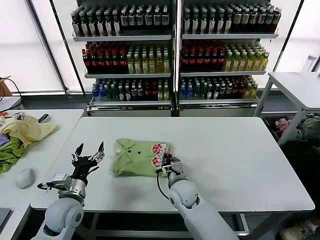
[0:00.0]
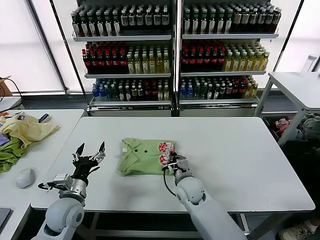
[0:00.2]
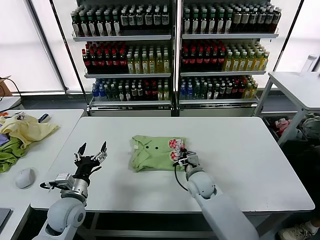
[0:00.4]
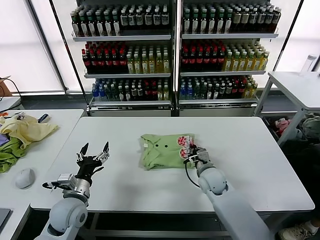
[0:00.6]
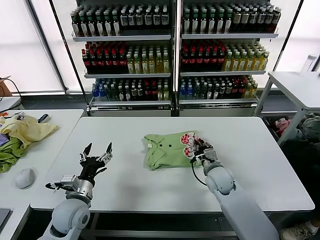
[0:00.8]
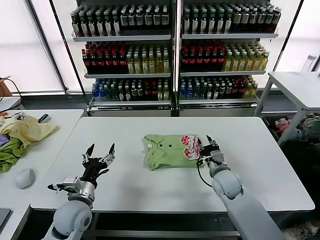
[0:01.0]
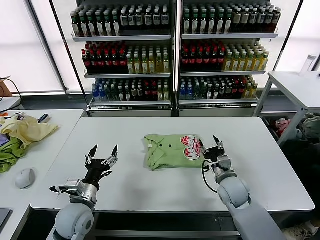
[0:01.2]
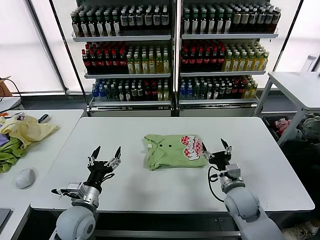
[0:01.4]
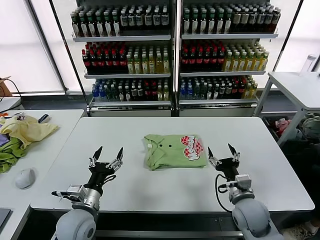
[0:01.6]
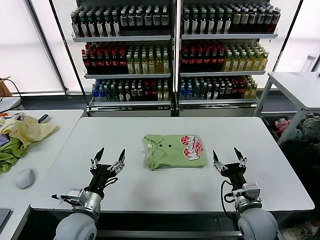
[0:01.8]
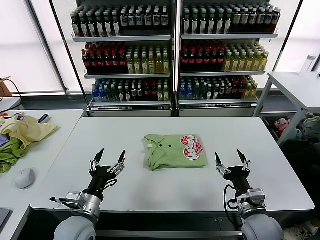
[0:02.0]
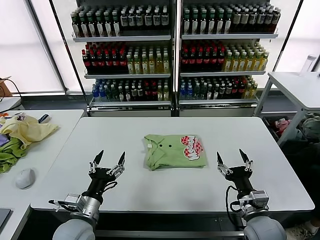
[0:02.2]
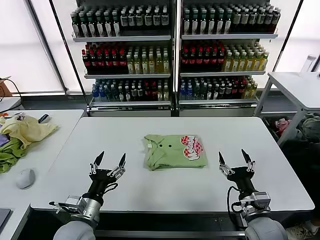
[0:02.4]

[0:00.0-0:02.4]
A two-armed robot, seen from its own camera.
Task of the whole recording: fold and organize the clothes.
0.0 to 1.2 s: The right gripper moves to the right, roughly 15 cm, and opens its fingers.
1.2 to 2.4 s: The right gripper moves backward, about 15 cm. The left gripper moves backward, roughly 5 cm.

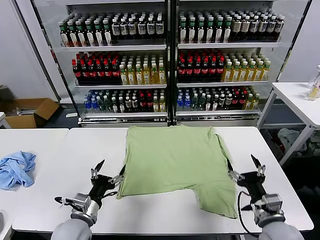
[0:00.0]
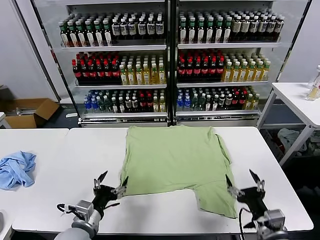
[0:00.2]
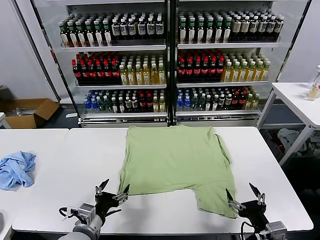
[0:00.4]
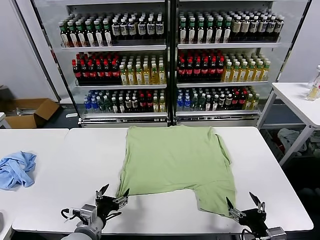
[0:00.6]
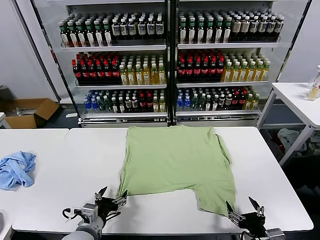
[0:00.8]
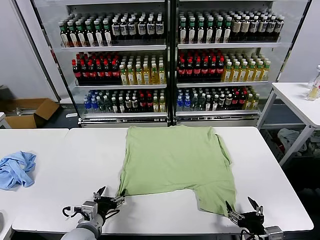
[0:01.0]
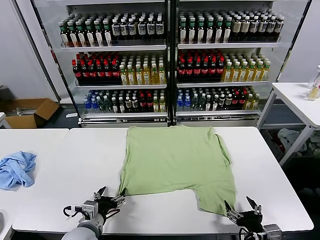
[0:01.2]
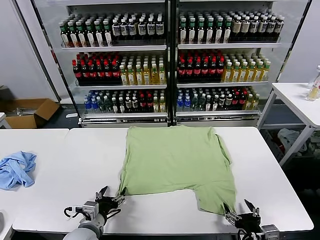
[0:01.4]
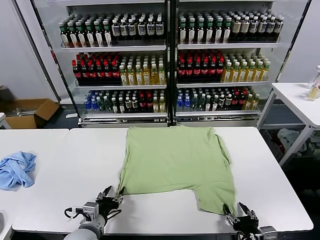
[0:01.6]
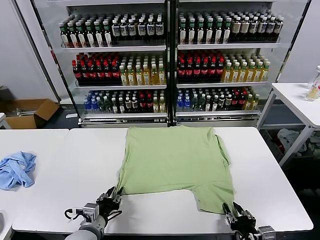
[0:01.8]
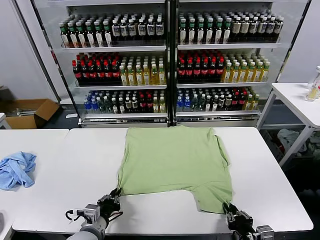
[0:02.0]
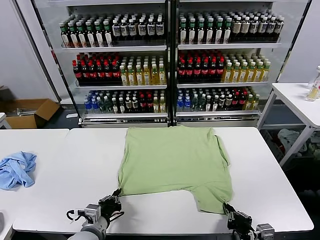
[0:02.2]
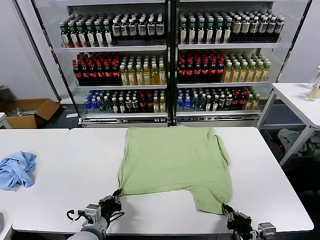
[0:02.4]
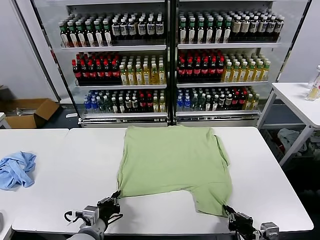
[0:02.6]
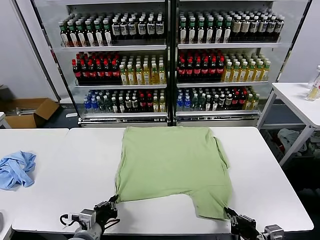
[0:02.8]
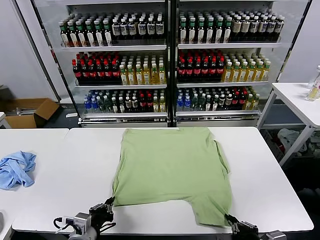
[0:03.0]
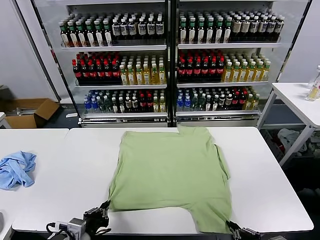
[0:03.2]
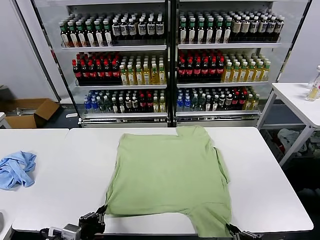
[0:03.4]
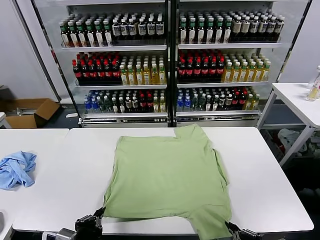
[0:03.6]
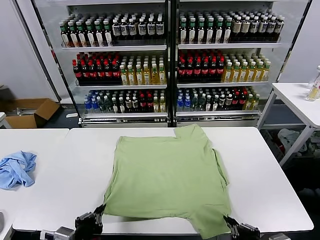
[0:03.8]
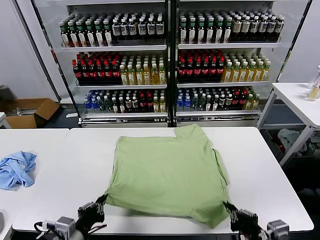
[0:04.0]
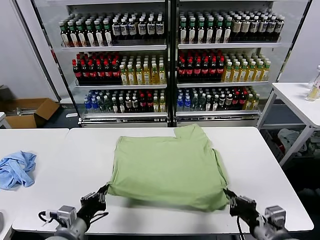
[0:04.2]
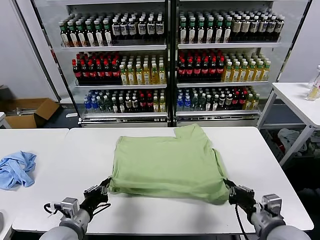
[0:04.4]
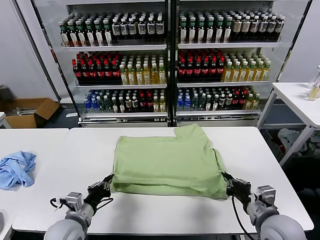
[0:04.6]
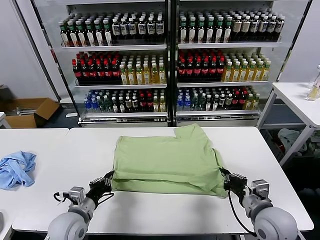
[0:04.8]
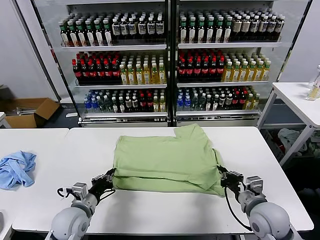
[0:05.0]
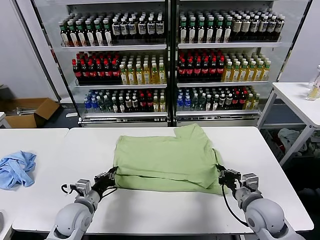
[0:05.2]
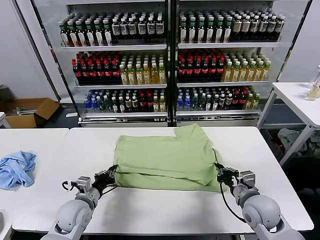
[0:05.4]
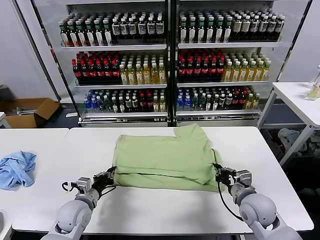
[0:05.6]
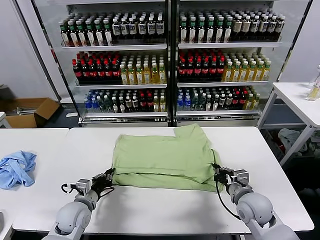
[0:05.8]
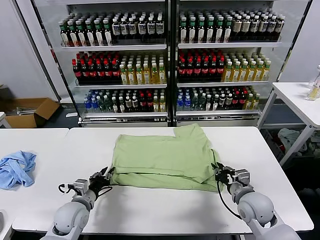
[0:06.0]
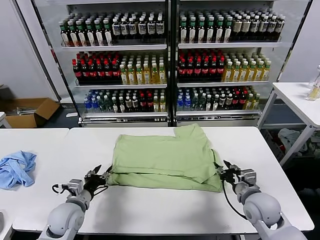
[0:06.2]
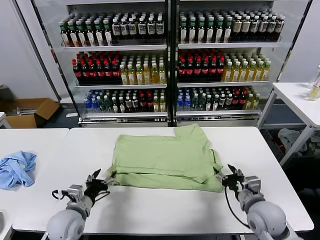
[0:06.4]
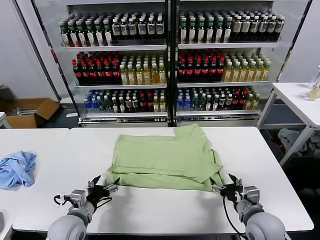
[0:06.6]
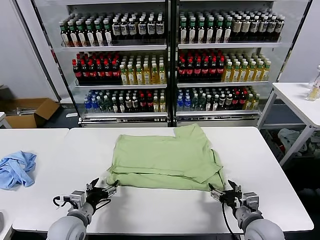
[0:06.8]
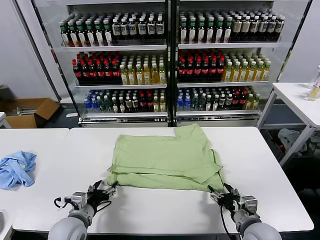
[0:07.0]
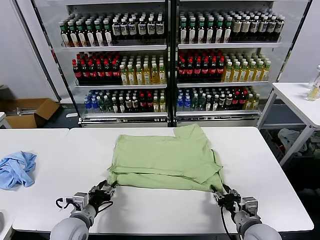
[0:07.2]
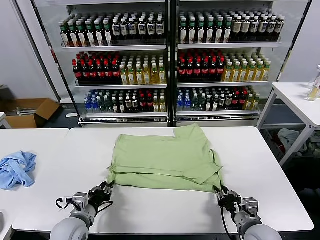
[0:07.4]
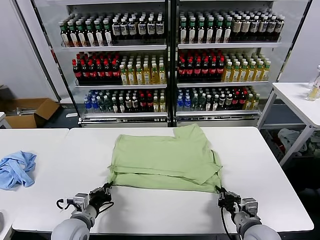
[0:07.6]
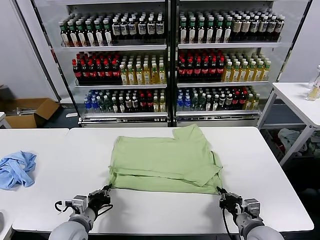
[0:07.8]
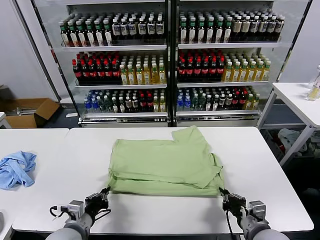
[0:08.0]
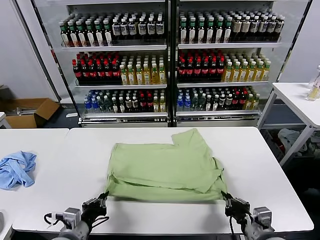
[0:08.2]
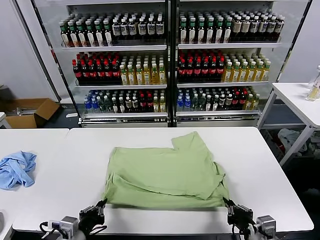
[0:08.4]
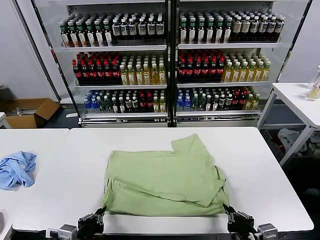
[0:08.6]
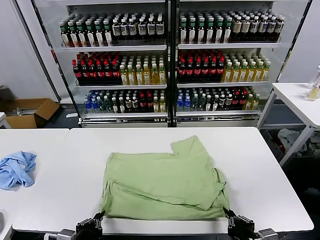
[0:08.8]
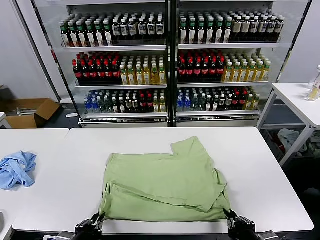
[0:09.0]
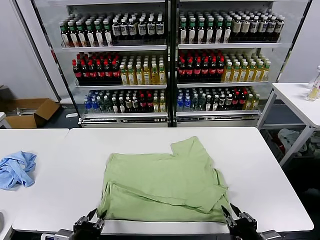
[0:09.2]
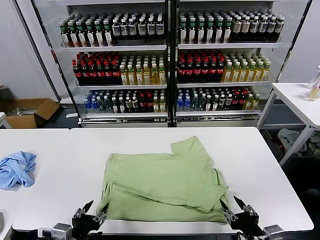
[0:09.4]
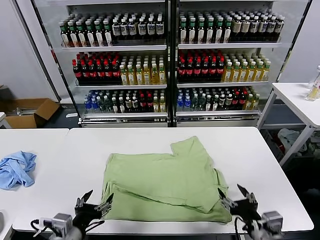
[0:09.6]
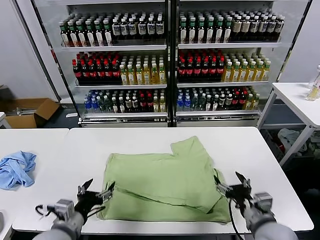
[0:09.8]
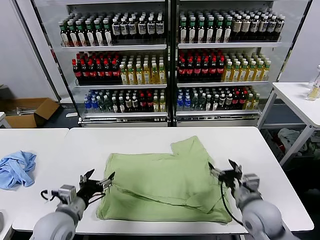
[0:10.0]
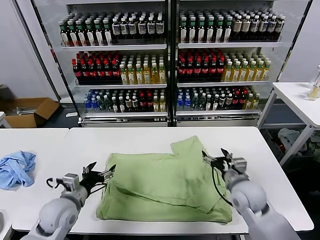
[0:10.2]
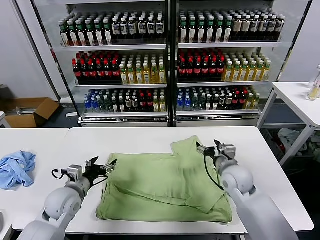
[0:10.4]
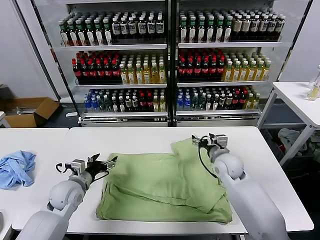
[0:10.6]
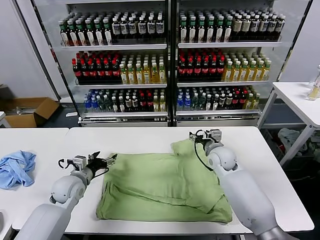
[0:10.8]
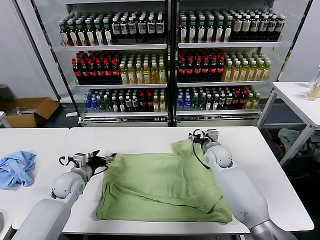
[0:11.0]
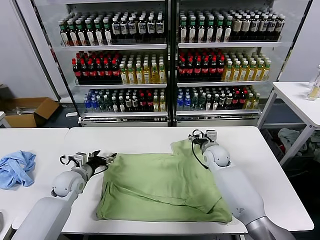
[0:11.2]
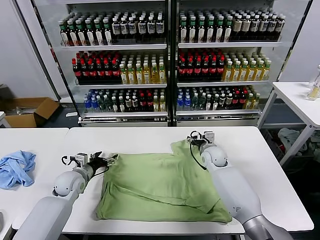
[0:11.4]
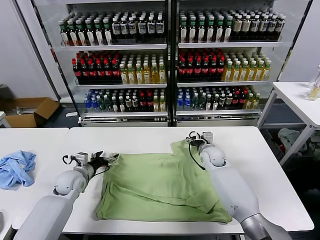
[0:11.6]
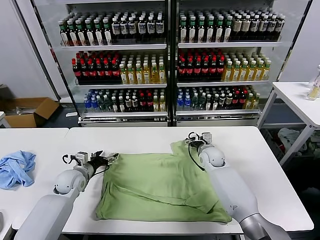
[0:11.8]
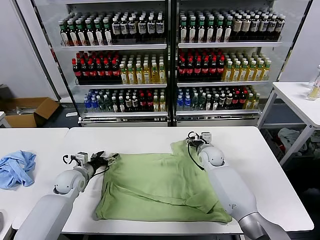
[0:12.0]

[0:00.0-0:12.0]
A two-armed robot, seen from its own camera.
Task of the whole recording: fold and organize the clothes.
Step, 0.0 to 3.0 s: use both grippers simultaneously to clamp the lower edge of the clothing fabric.
Step, 3.2 to 6.2 s: use both grippers to drag the lower edge of the fabric forward and fold it over the upper edge.
Step, 6.4 to 9.2 s: Drag the clothes downward with both gripper.
1.6 to 3.0 s: The right gripper shifts some 5 cm upward, and closes. Meanwhile the left gripper ends up roughly 5 cm from where it was, and closes up.
3.0 to 4.4 s: The left gripper goes about 5 cm forward, while the right gripper moves forward, about 10 cm.
4.4 to 6.0 s: Both grippers move forward and downward, roughly 10 cm. The left gripper opens. Meanwhile the right gripper opens its fingers.
6.0 to 7.6 s: The right gripper is displaced backward by some 10 cm, and closes its fingers. Meanwhile the left gripper shifts roughly 5 cm backward, and closes its fingers.
7.6 to 9.0 s: Both grippers travel together backward and upward, some 15 cm.
9.0 to 10.4 s: The two grippers go roughly 25 cm forward. The right gripper opens up, while the left gripper opens up.
10.4 to 12.0 s: The left gripper shifts about 10 cm forward. The right gripper goes approximately 10 cm forward and downward.

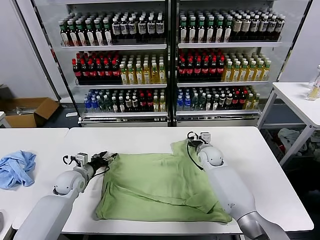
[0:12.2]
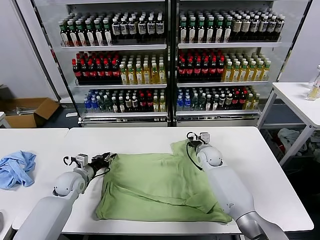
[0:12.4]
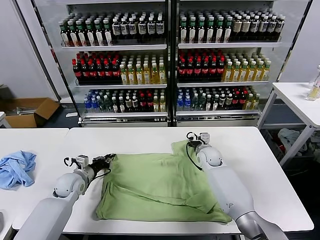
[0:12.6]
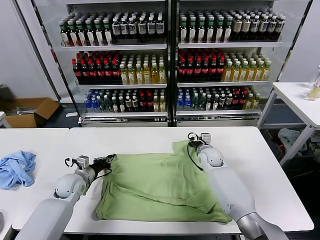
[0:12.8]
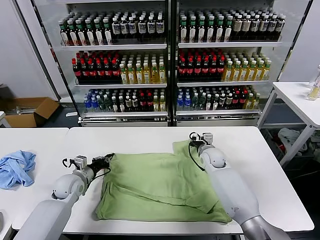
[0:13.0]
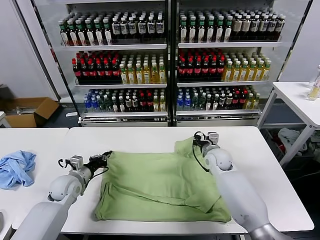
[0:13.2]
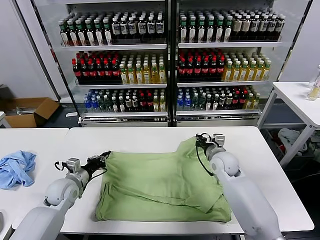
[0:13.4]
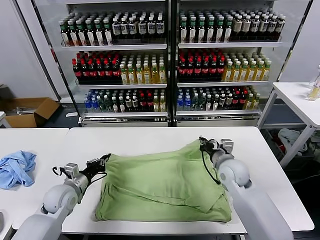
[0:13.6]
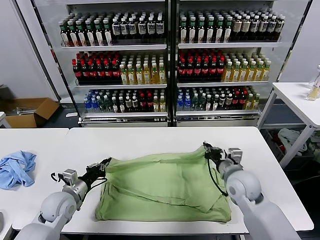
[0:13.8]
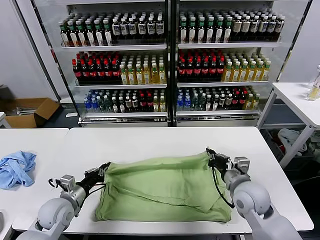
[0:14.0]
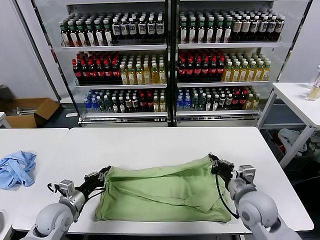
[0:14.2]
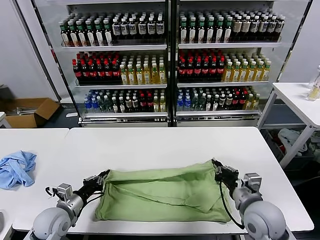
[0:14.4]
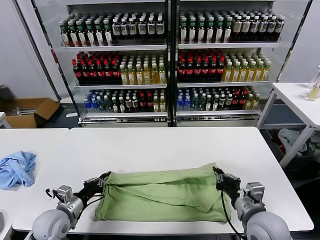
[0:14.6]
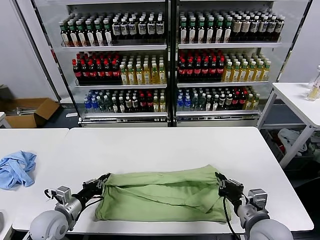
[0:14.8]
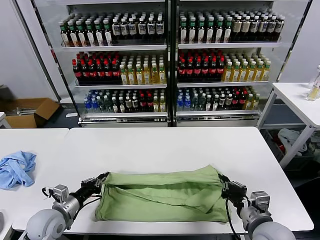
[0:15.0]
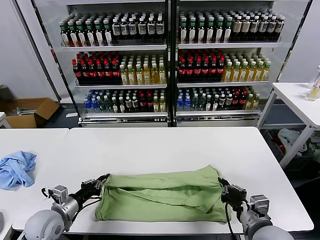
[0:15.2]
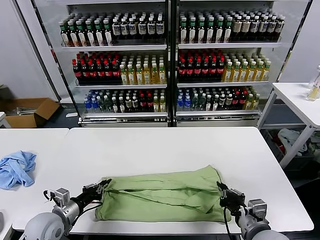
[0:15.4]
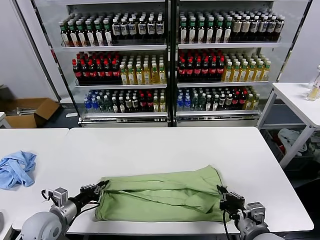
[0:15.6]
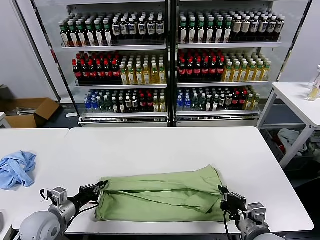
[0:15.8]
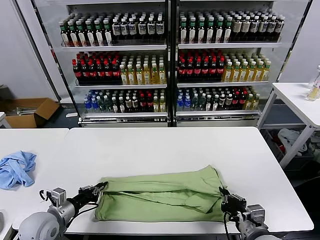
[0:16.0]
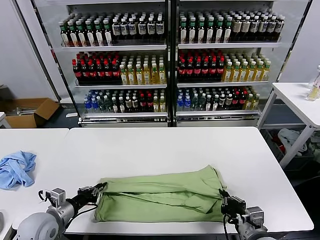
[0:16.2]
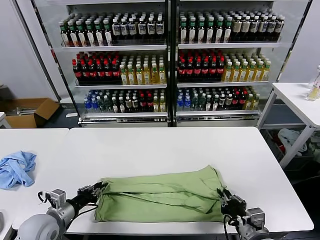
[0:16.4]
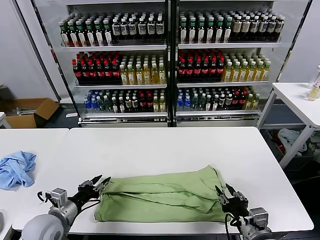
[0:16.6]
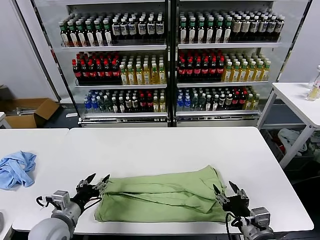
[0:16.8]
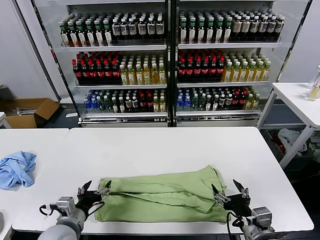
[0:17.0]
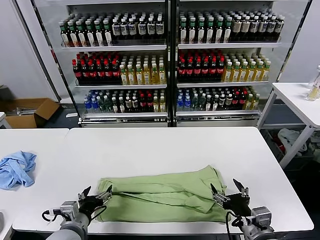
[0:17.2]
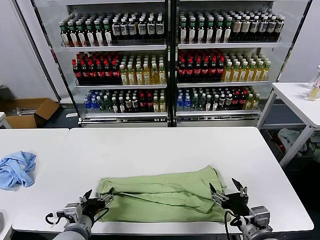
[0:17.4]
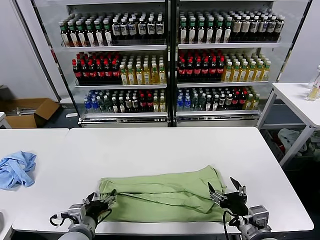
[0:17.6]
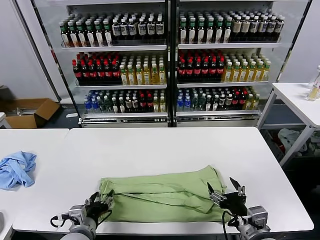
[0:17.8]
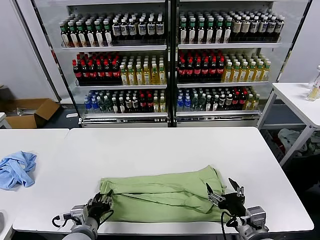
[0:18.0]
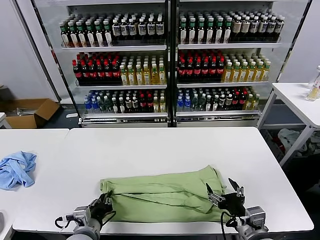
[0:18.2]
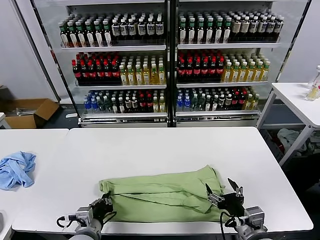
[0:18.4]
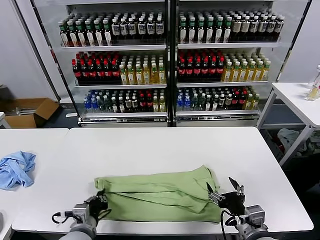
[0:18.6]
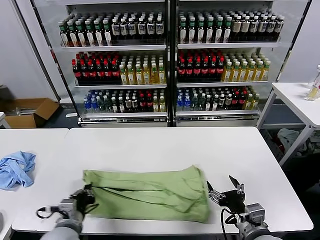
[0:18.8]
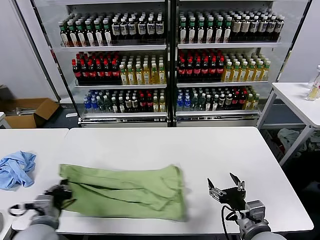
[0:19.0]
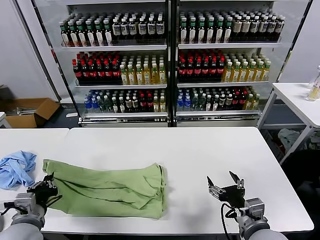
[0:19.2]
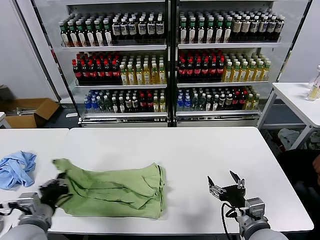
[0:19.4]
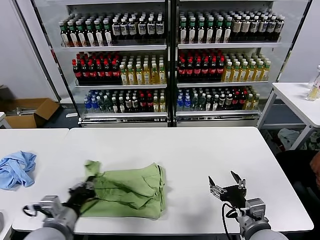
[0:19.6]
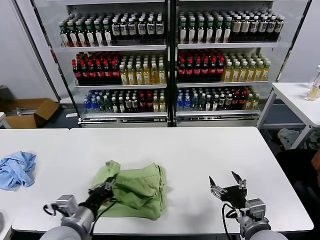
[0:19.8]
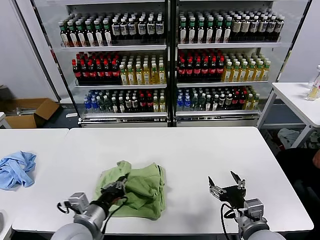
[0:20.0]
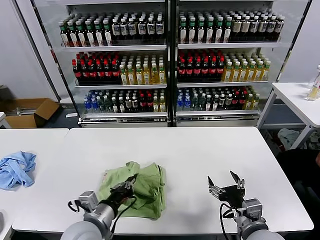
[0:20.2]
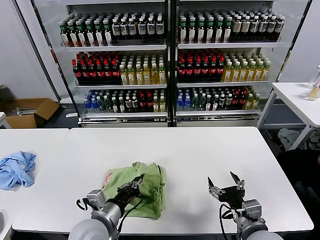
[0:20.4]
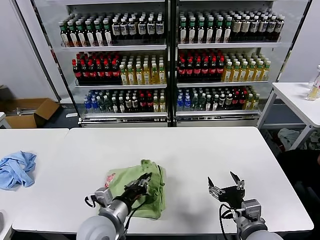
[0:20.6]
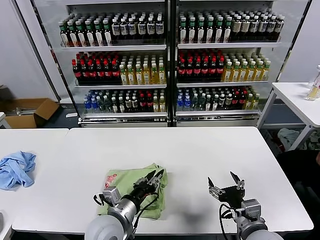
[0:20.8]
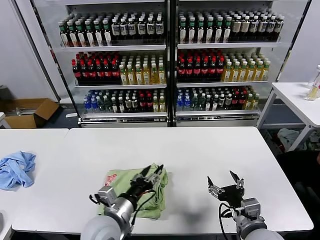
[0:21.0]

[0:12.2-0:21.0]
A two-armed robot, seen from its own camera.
Task of the whole recording: fold and organize the clothes.
Step, 13.0 to 16.6 s: use both grippers to drag the upper edge of the fabric backward and fold it over the lower edge.
Step, 16.8 to 18.4 s: use the left gripper to clamp the left edge of the fabric.
Step, 18.6 to 20.8 s: use the left gripper to drag the left edge of the fabric to the left and folds it over the right edge.
12.2 to 13.6 s: The right gripper shifts approximately 15 cm backward and upward, and closes. Meanwhile the left gripper moves backward, approximately 5 cm, and closes.
13.6 to 15.2 s: The right gripper shifts some 20 cm backward; the left gripper is displaced backward by some 10 cm.
15.2 to 16.6 s: The right gripper opens up, while the left gripper opens up.
16.6 to 18.0 s: The left gripper shifts some 10 cm to the right, and opens, then closes again. The right gripper opens.
18.0 to 19.6 s: The left gripper heads upward, covering roughly 10 cm, goes to the left and returns, roughly 10 cm each way, and closes up.
19.6 to 21.0 s: The left gripper travels to the right by roughly 15 cm, and opens.
